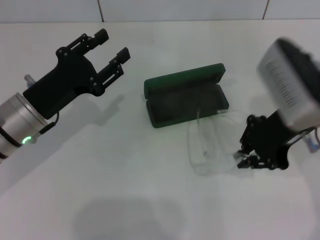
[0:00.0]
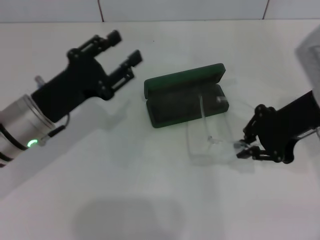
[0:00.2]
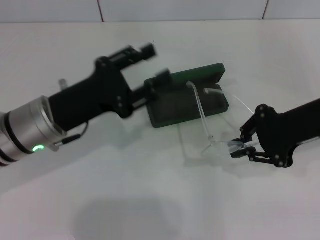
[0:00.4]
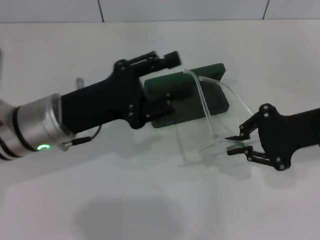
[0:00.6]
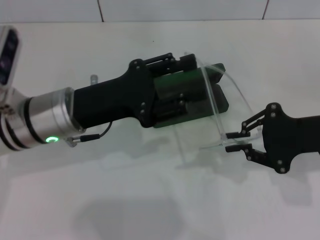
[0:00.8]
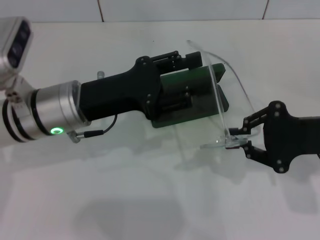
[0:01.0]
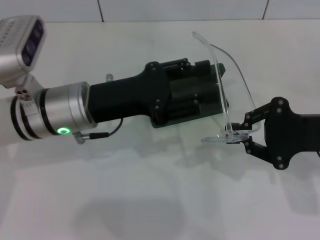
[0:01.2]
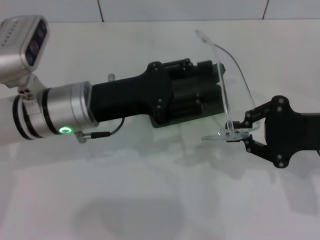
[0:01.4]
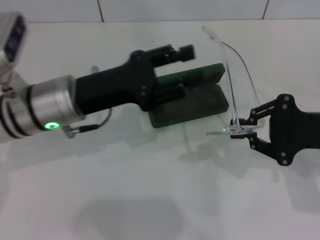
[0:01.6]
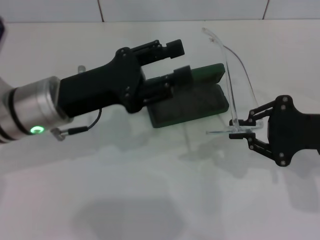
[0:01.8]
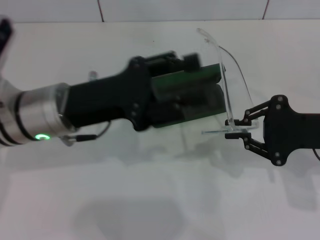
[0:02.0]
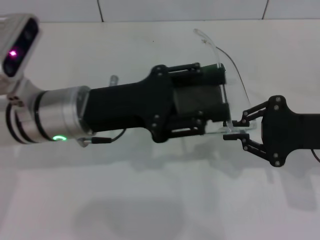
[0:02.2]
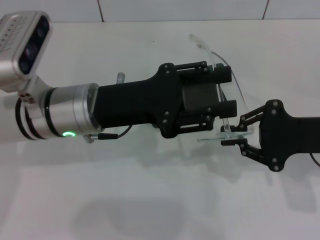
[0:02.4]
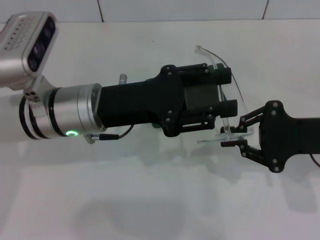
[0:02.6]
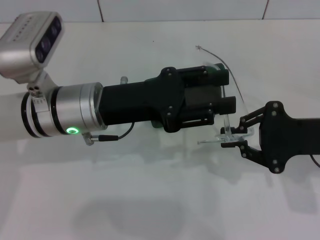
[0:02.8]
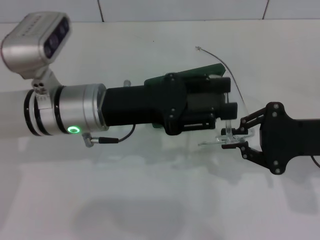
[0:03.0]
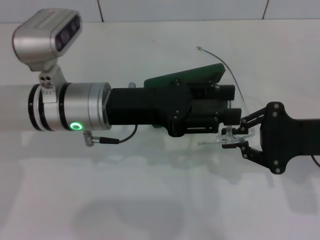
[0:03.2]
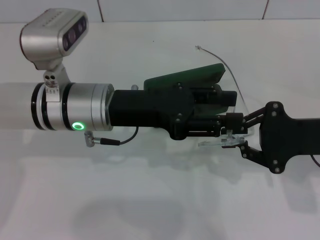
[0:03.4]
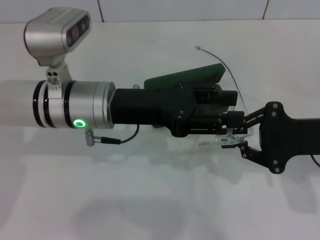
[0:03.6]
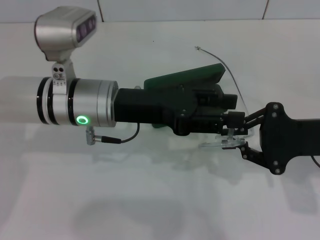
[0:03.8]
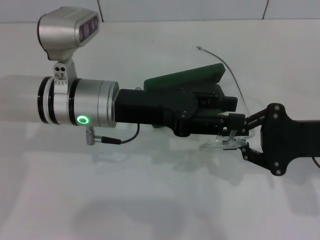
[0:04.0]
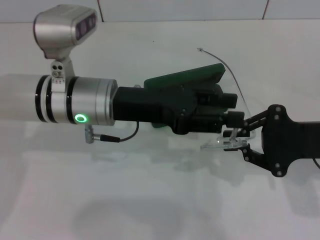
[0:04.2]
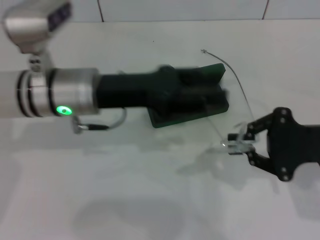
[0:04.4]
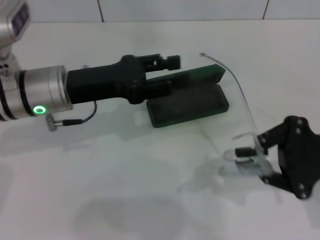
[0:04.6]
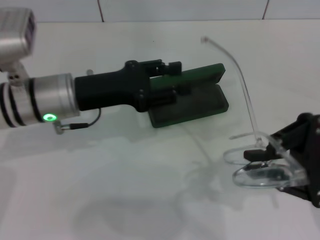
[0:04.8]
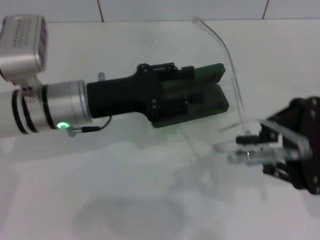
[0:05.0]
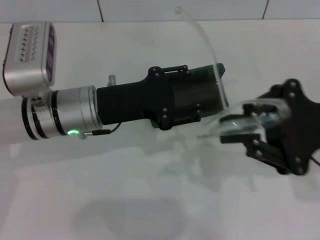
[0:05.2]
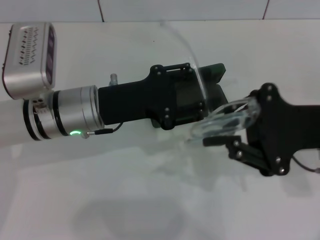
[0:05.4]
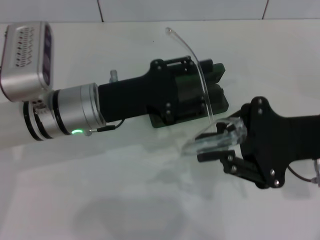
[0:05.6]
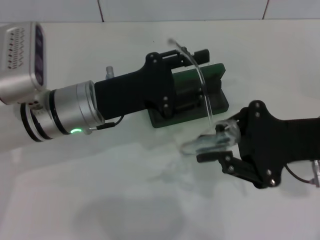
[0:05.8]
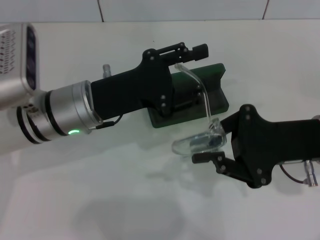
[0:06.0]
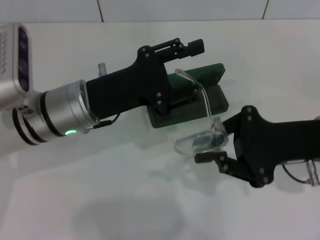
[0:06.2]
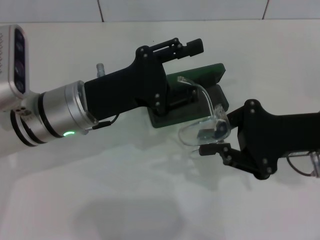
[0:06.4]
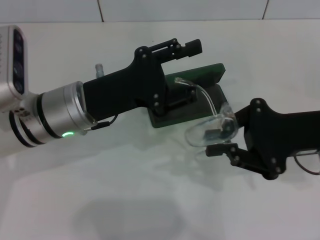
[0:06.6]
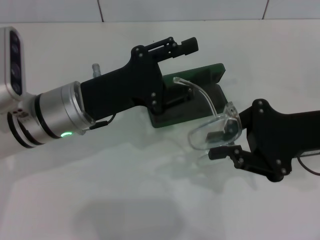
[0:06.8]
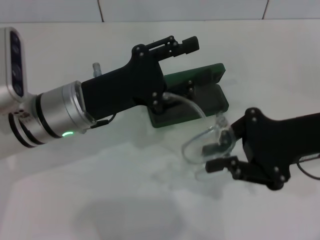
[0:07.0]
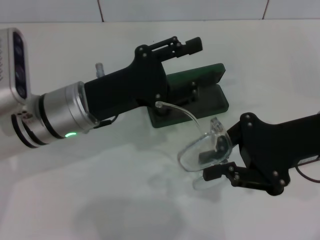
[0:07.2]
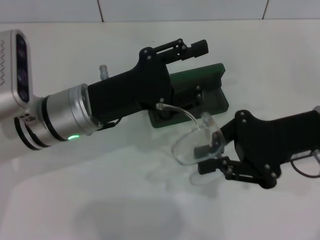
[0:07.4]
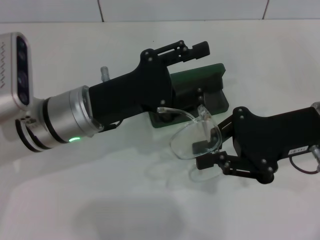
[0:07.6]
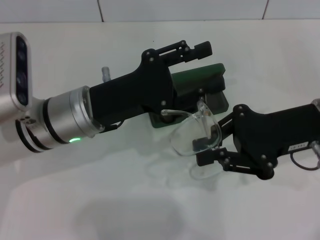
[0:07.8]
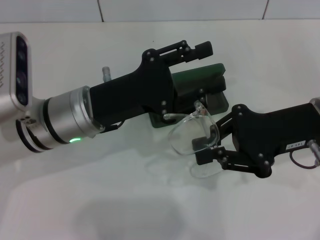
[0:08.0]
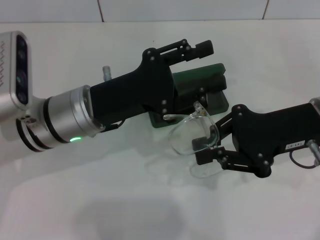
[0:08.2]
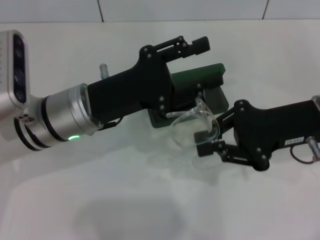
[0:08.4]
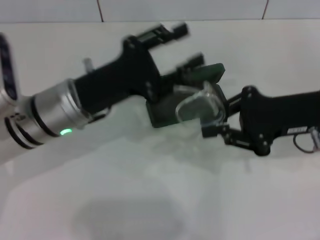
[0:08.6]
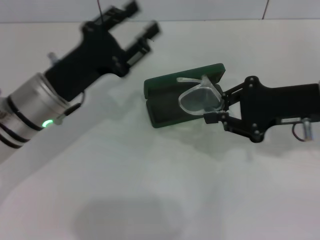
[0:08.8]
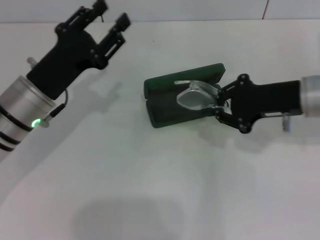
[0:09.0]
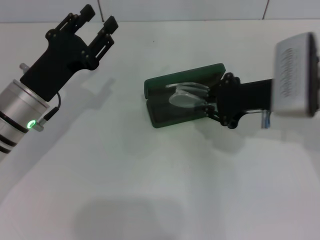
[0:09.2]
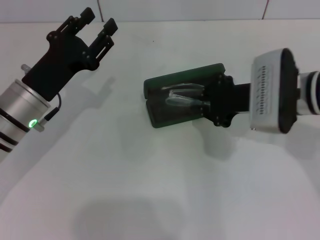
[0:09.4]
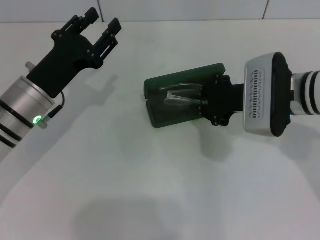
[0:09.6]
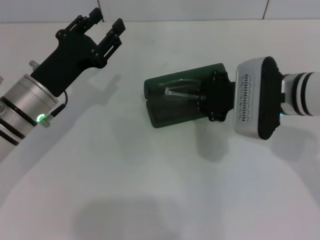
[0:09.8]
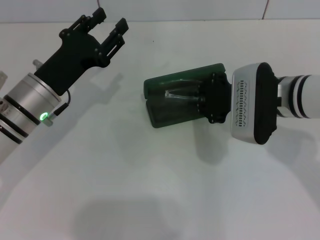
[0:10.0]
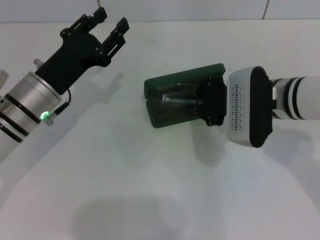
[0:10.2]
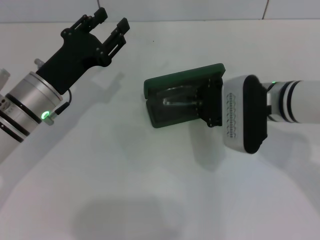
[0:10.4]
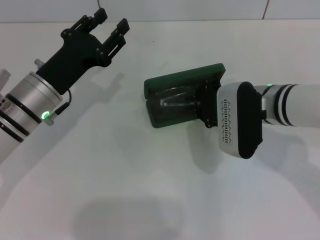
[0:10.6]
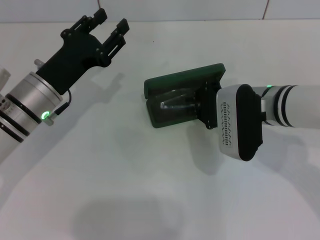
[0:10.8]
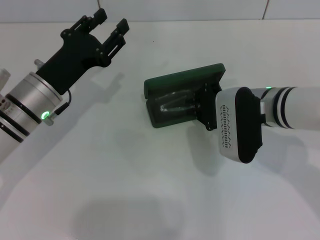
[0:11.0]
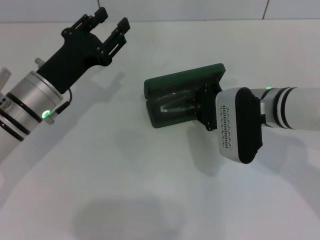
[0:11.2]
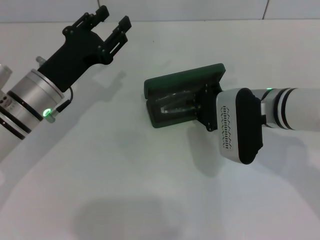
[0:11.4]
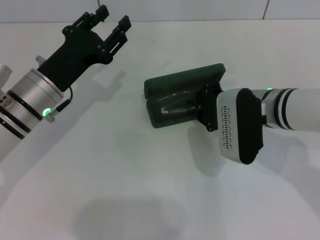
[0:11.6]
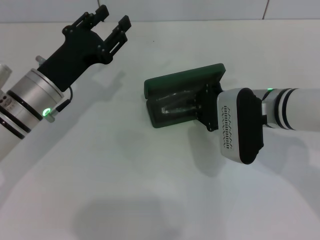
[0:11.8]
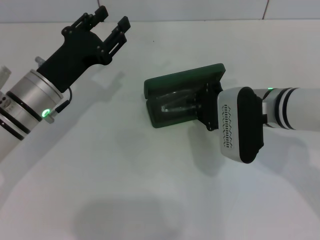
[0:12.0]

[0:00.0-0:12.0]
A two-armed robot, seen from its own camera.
Step, 0:00.0 to 0:08.0: Fold the frame with your left hand.
0:00.0 to 0:01.6: The right gripper heads to the right and downward, covering about 10 cm. Meanwhile the left gripper heads to the right, covering approximately 5 cm.
0:03.0 to 0:04.4: The grippers move only a little.
0:04.4 to 0:06.0: The right gripper shifts about 5 cm to the left.
0:07.6 to 0:09.0: The left gripper travels to the left by about 5 cm.
0:09.0 to 0:10.4: The right gripper travels to the left by approximately 5 cm.
0:10.4 to 0:12.0: Neither gripper changes place.

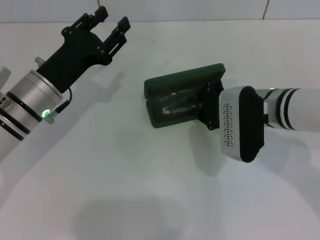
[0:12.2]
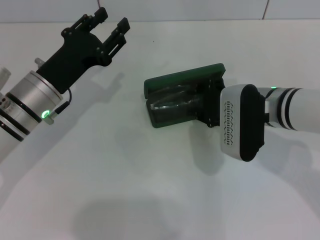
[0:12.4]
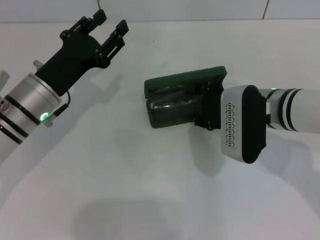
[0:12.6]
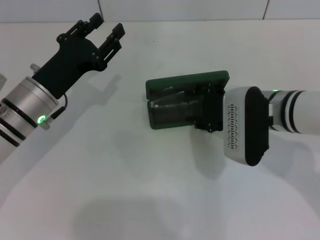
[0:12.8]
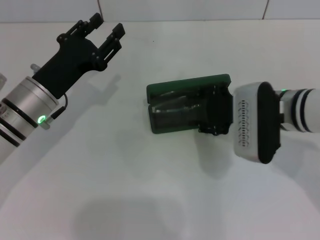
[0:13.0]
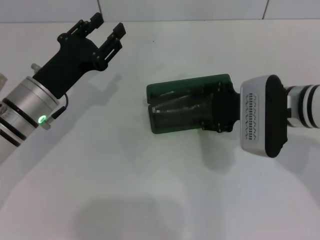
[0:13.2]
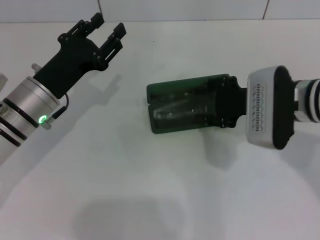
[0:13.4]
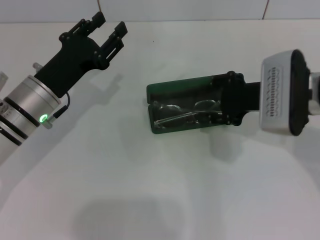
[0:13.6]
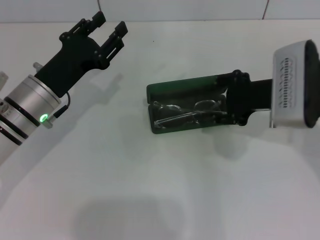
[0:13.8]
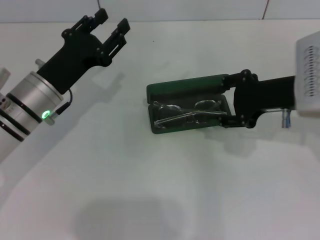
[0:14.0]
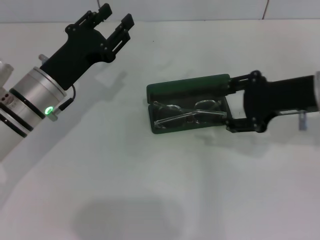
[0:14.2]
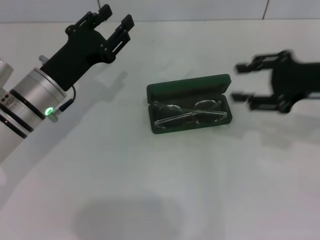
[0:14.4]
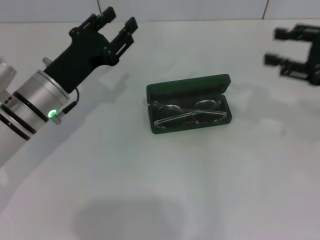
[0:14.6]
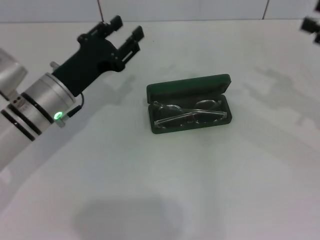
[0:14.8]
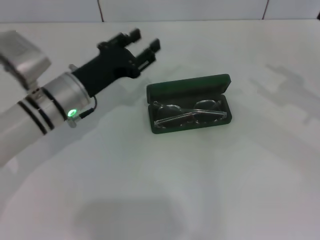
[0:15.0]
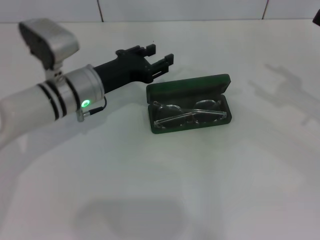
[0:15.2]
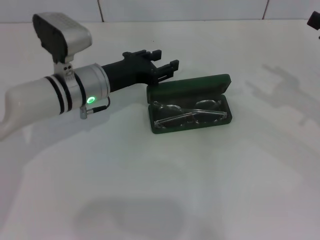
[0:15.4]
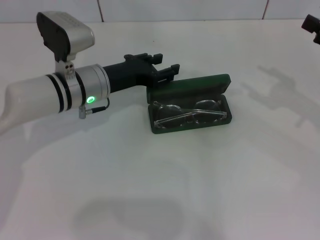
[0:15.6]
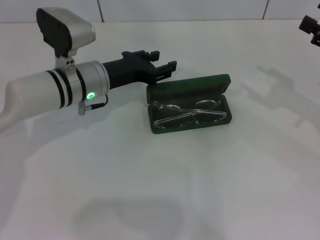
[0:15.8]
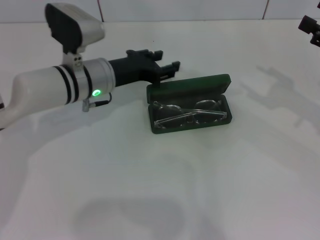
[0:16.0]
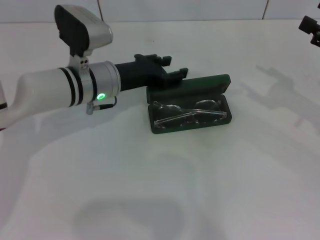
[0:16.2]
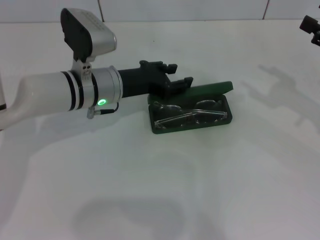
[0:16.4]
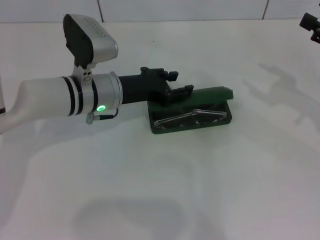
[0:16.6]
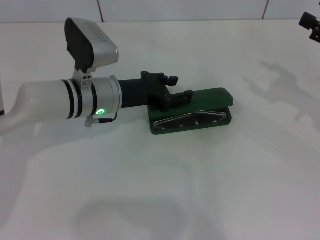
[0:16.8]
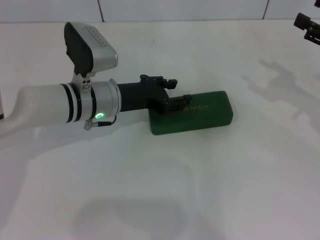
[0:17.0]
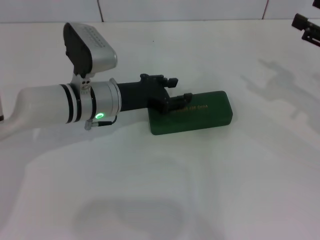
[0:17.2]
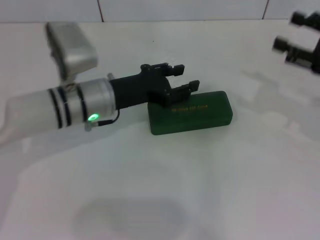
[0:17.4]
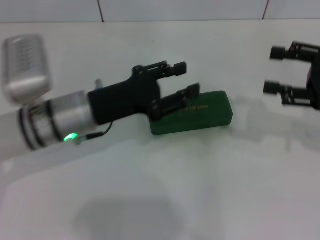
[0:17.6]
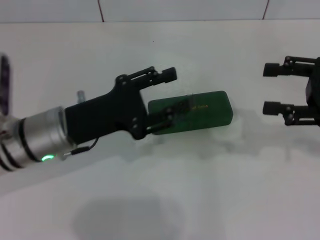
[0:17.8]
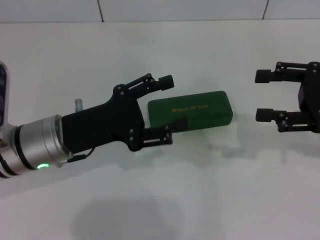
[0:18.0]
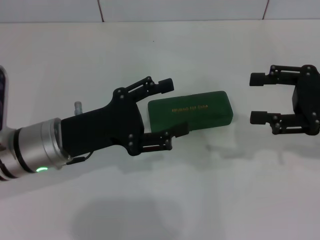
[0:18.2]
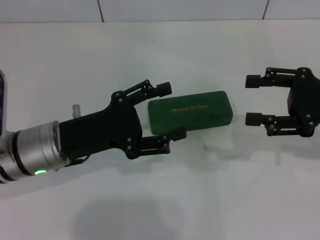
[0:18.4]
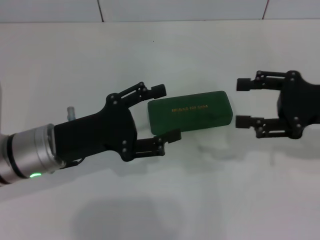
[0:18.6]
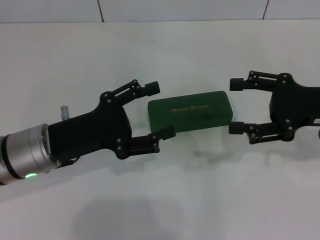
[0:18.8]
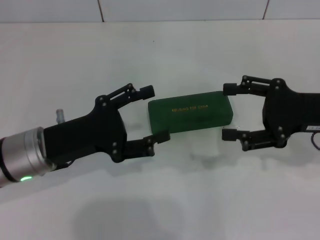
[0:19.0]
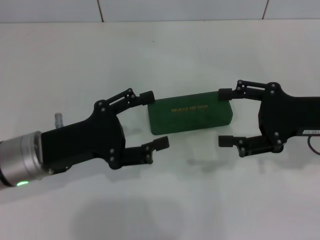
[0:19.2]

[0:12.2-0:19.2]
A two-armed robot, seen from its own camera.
Step, 0:14.2 to 0:17.6: Close the glasses case with your left hand.
0:12.2 to 0:13.6: The right gripper ends up some 5 cm from where it was, and opens.
0:13.6 to 0:15.0: The right gripper travels to the right by roughly 20 cm.
0:15.0 to 0:16.4: The left gripper changes place by about 5 cm.
0:16.4 to 0:17.8: The left gripper heads backward and to the left, covering roughly 10 cm.
0:17.8 to 0:19.2: The right gripper goes some 5 cm to the left; the left gripper opens its fingers.
